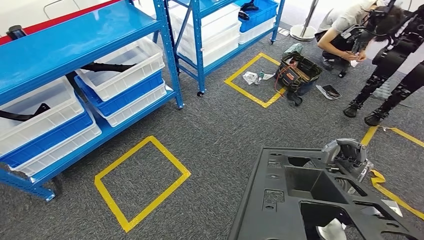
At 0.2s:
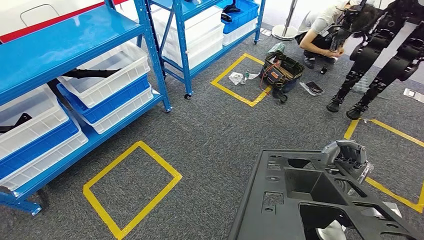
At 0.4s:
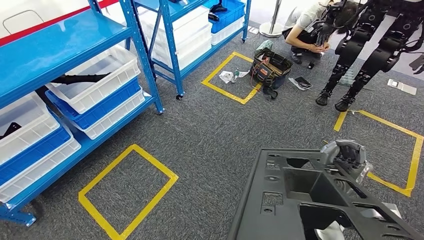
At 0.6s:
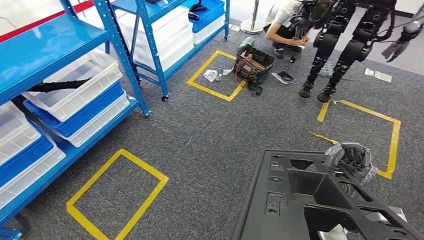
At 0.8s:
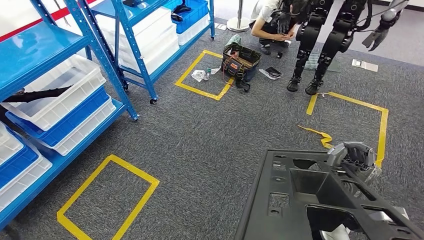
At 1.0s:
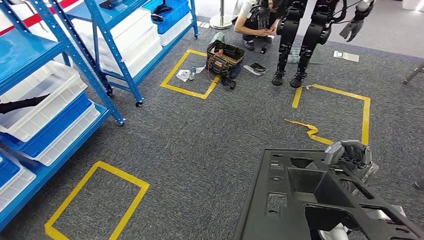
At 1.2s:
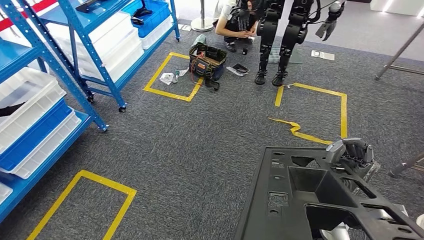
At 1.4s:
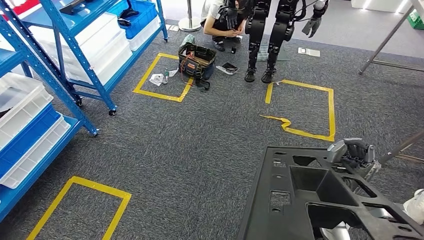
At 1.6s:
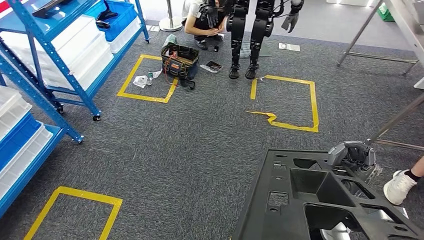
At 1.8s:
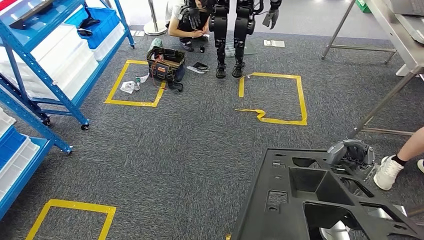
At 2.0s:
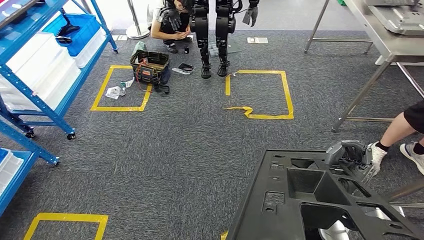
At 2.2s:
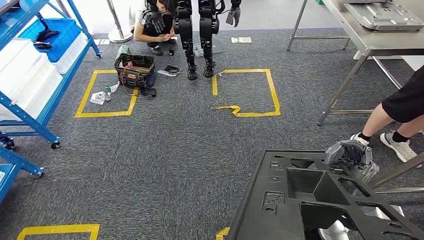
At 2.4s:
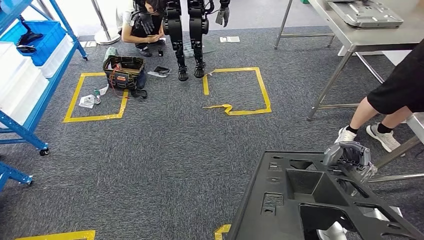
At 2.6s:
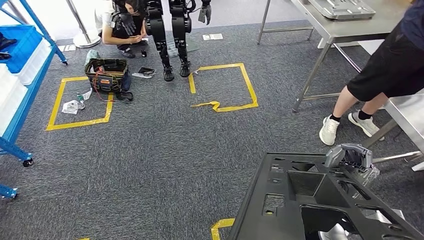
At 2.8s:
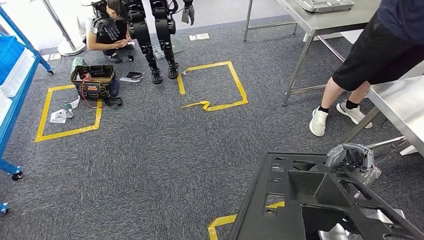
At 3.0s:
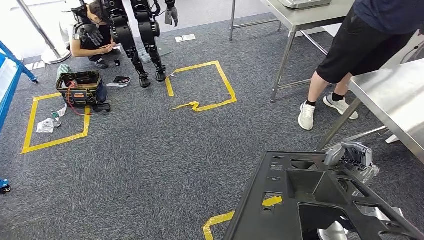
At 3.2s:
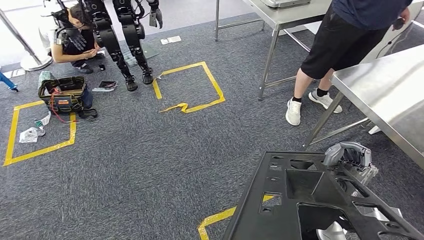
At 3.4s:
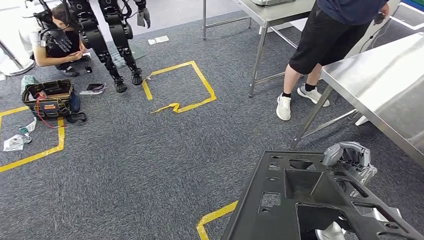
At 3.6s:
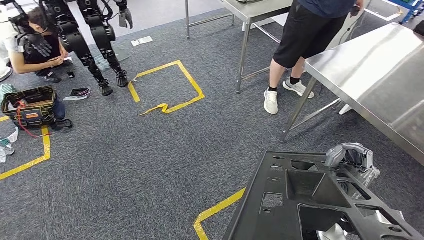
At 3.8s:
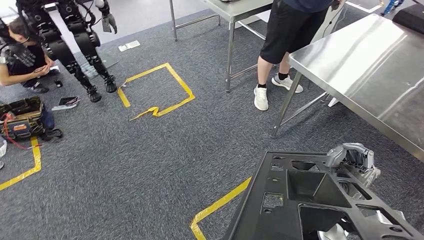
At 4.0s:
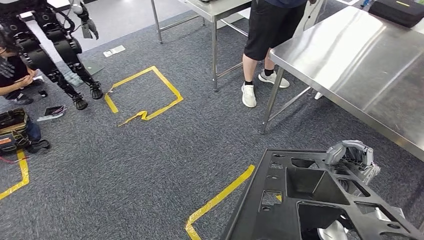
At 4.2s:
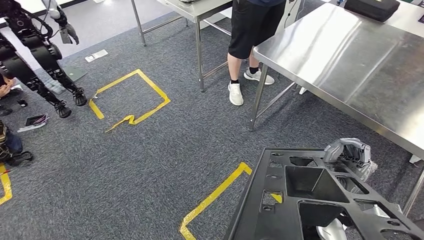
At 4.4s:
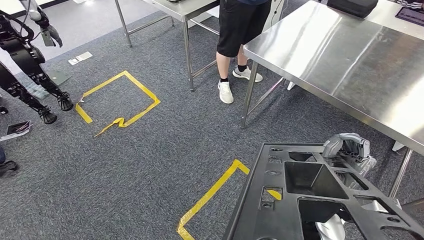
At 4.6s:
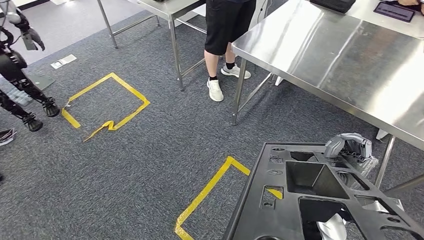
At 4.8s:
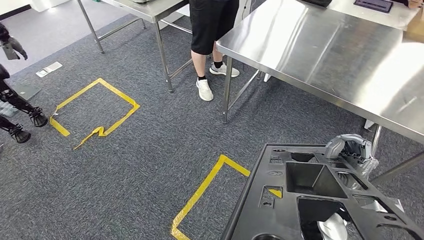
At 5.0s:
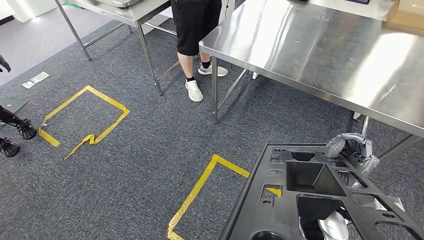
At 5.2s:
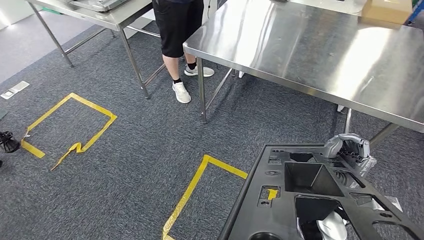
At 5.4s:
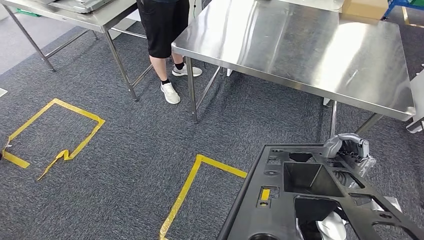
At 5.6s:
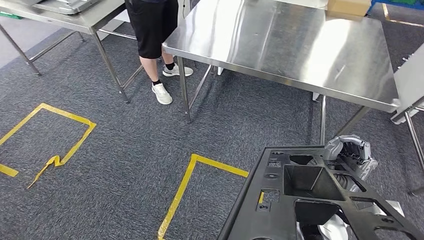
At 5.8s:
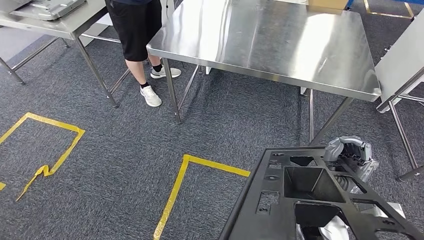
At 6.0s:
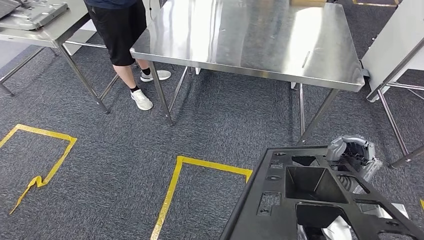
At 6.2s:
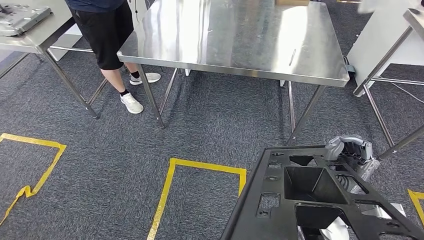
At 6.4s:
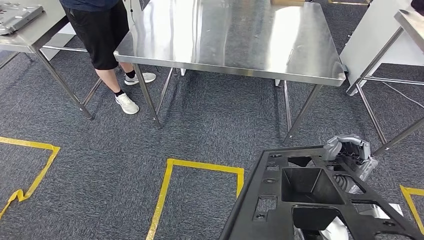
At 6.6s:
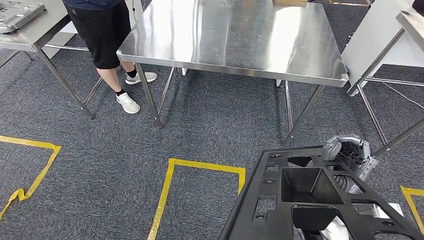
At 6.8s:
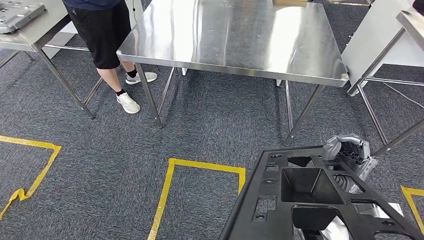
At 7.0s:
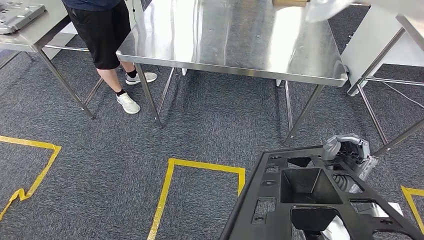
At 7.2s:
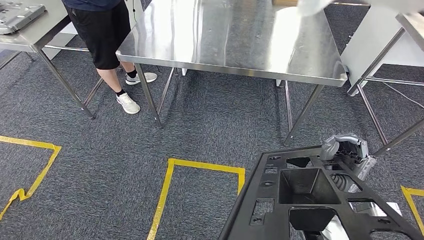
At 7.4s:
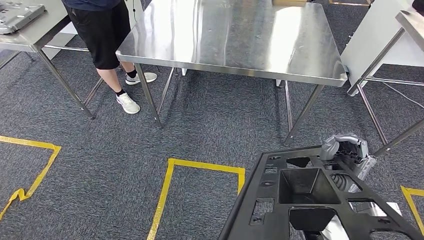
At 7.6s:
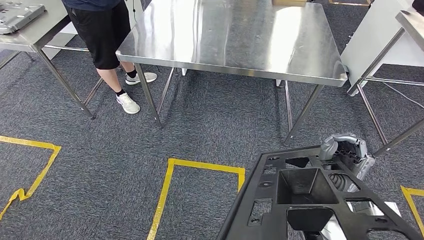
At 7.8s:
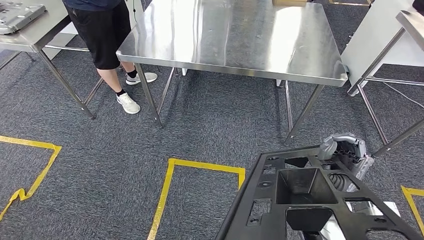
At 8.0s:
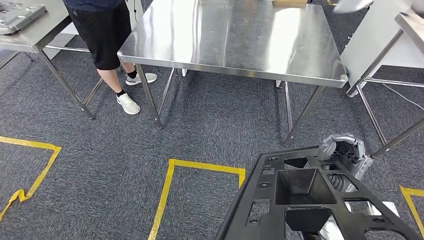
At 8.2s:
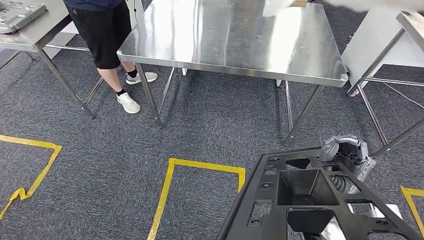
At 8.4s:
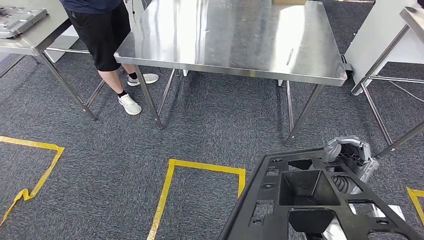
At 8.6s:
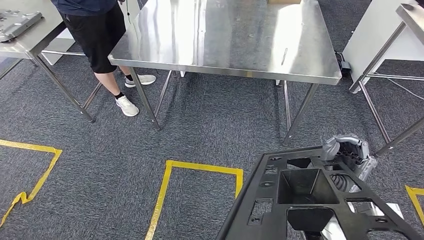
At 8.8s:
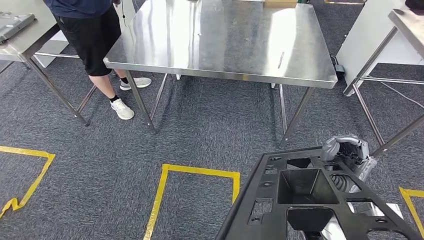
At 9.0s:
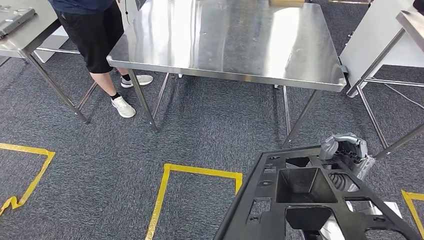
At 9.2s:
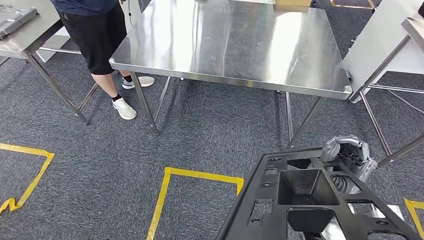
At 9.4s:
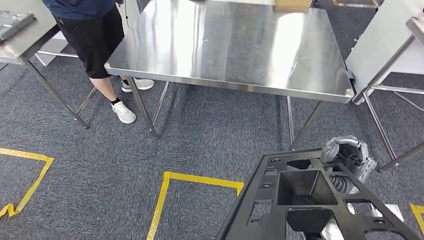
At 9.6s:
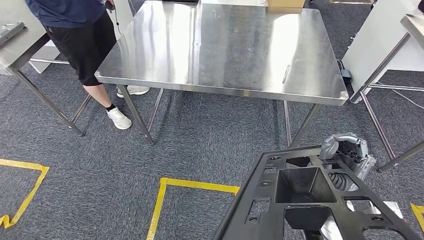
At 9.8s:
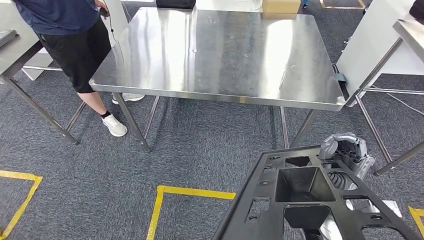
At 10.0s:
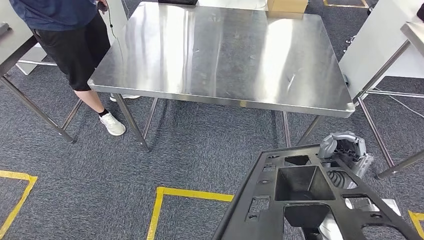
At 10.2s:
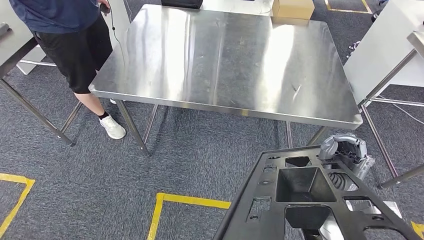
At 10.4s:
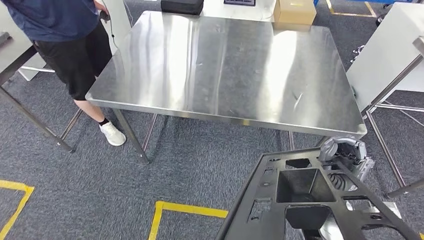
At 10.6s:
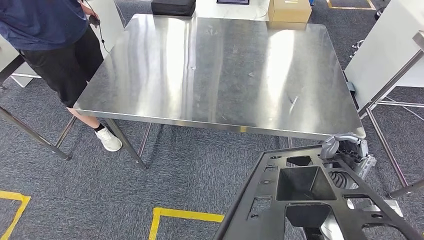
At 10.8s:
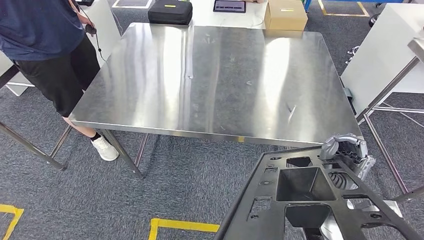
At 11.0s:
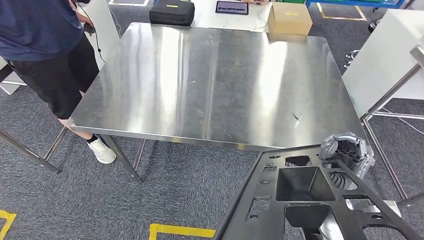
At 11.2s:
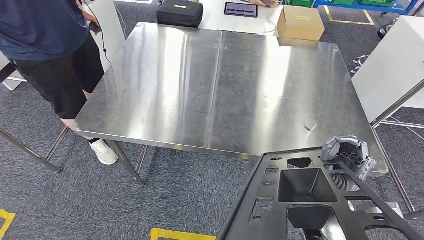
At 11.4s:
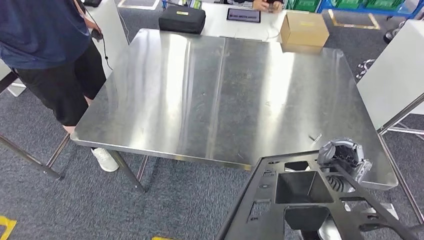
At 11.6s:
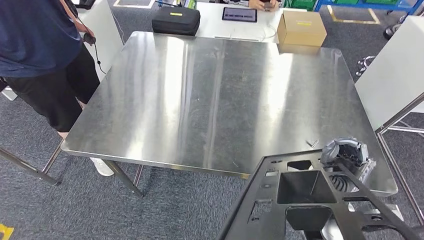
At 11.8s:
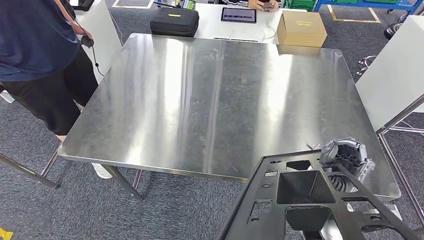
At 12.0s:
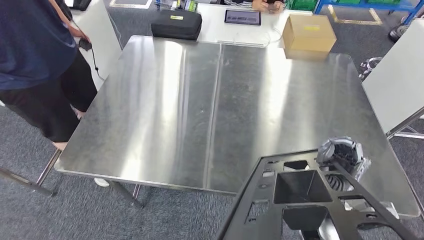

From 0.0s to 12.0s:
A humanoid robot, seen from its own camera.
Step, from 0.0s to 9.8s: Move the large material to the front of the workbench.
From 7.6s to 9.0s: Both hands stay put.

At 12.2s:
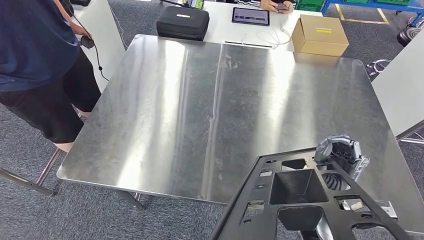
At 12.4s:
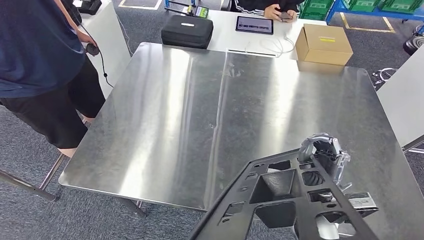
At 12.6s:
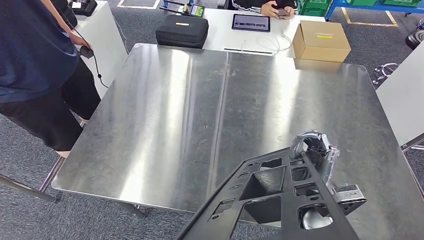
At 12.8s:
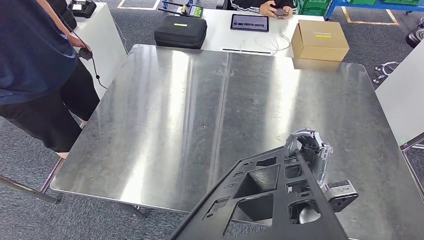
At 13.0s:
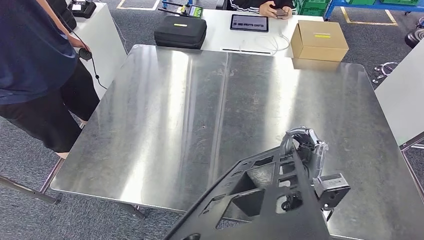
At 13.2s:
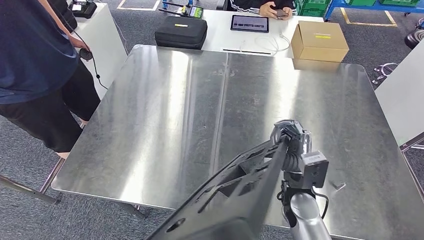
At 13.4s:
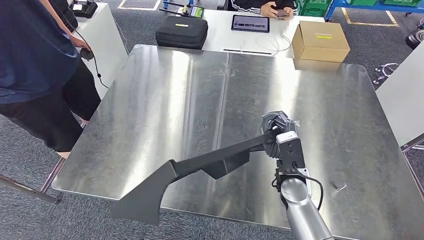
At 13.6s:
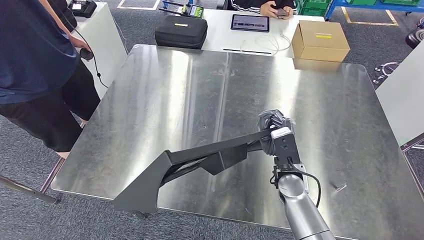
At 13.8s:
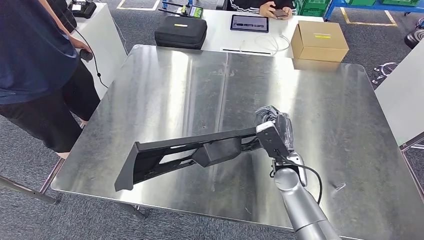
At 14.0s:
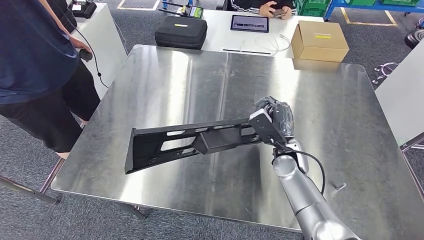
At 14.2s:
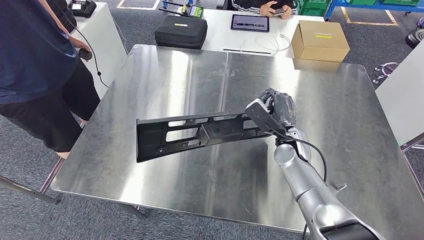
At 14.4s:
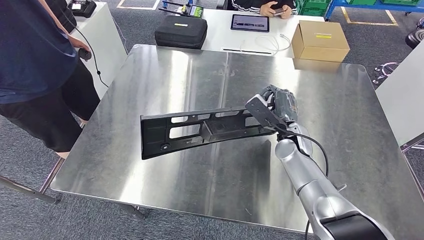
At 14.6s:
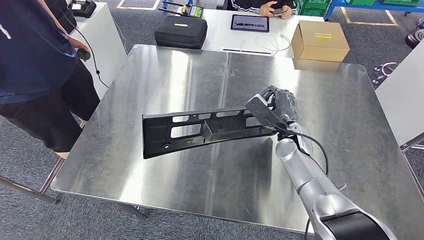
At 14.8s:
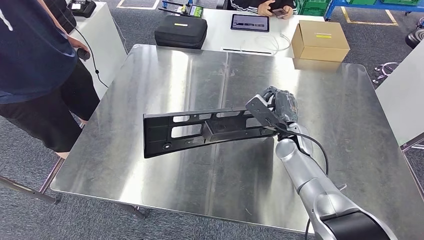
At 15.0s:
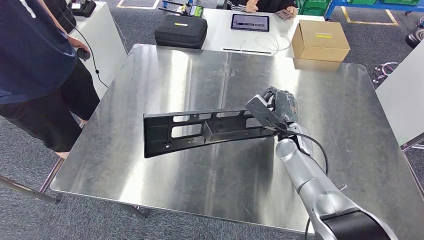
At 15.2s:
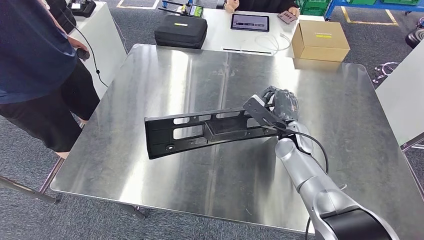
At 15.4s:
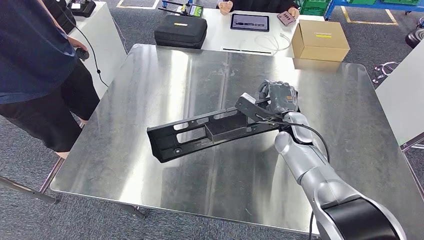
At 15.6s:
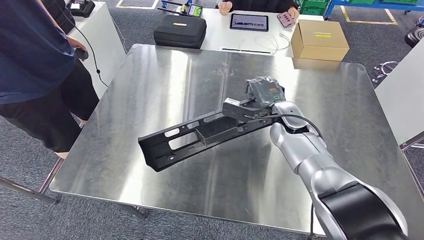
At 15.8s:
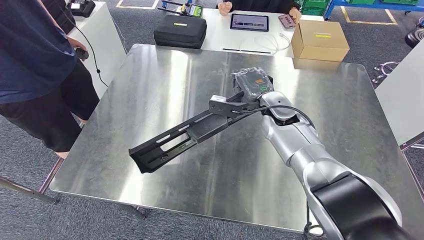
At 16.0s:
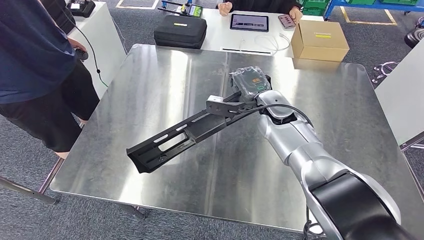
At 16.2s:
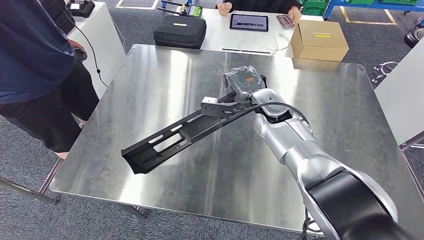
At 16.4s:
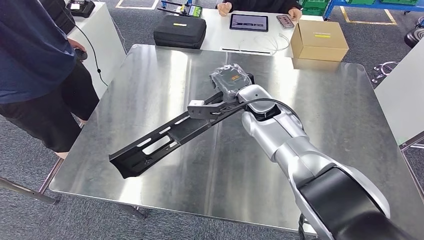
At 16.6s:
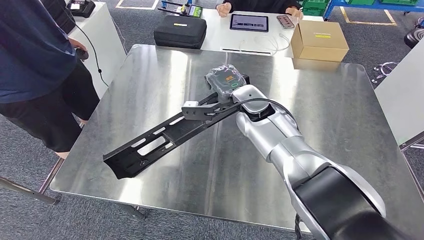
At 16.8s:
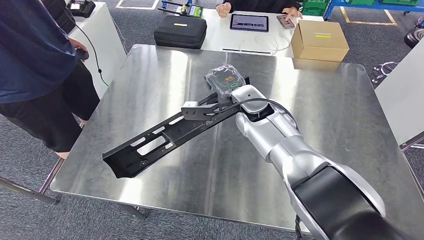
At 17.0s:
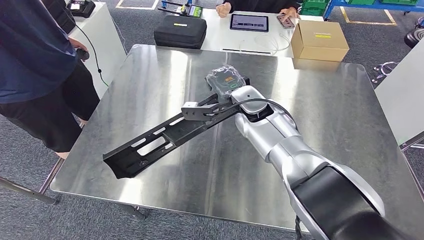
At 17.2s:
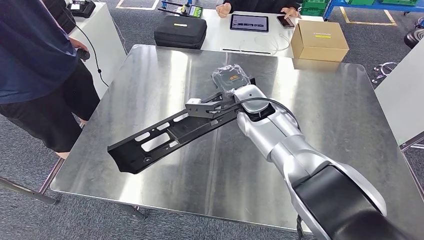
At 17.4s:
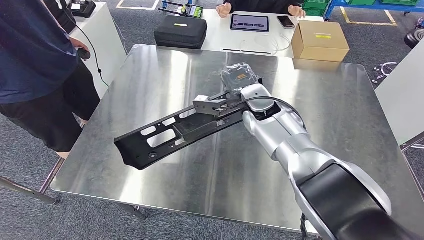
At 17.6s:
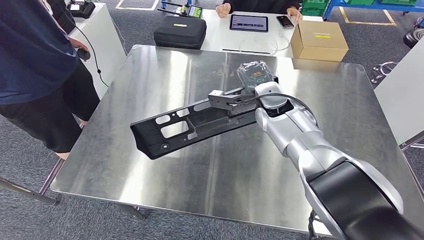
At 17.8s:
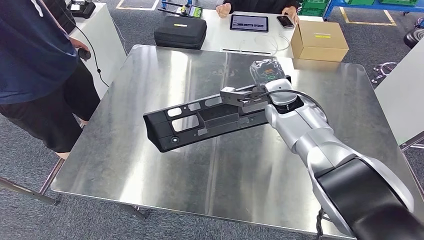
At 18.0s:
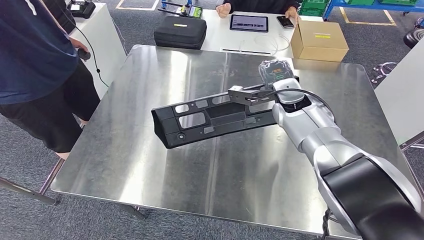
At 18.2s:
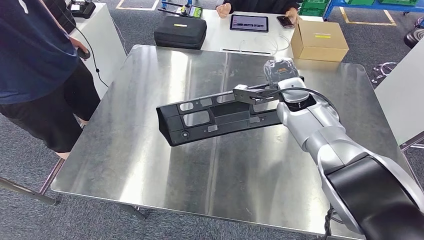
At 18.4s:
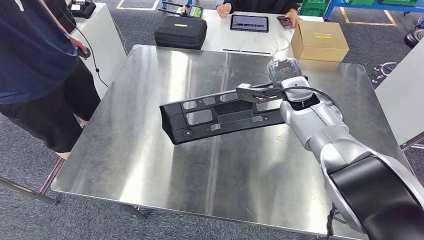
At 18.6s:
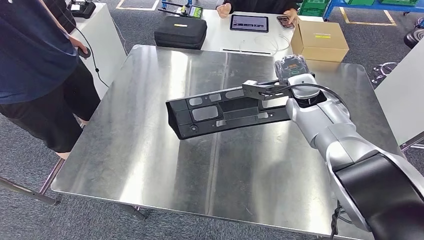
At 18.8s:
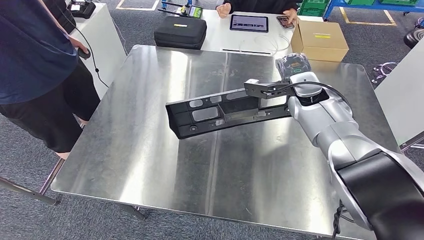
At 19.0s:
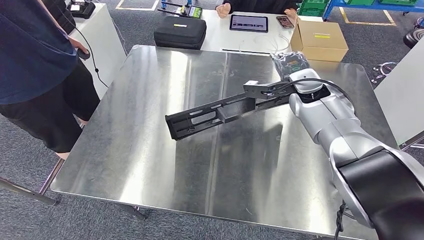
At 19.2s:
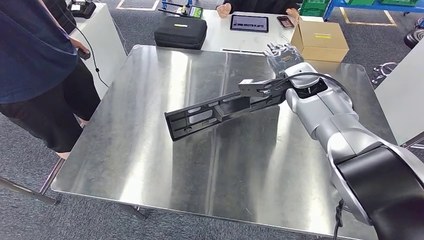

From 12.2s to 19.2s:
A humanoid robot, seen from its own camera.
From 13.6s to 15.0s: The right hand moves forward, approximately 10 cm.
